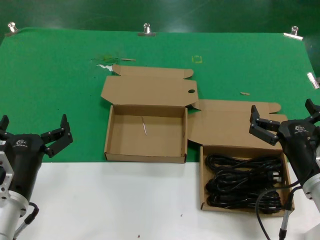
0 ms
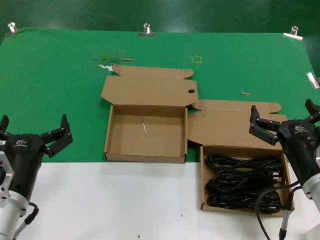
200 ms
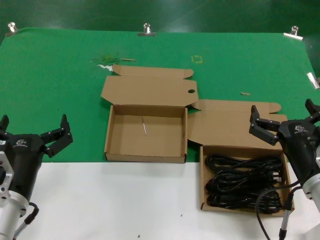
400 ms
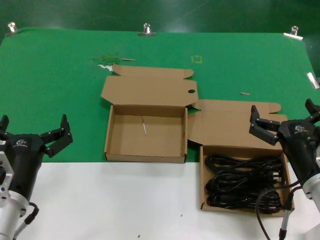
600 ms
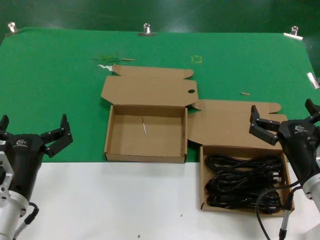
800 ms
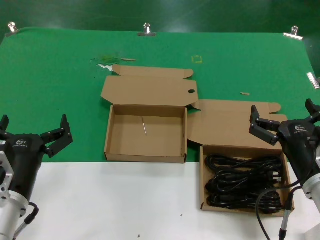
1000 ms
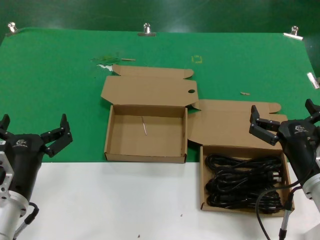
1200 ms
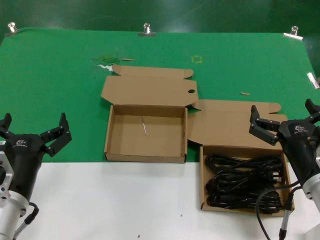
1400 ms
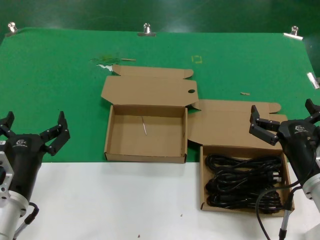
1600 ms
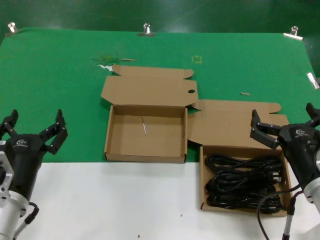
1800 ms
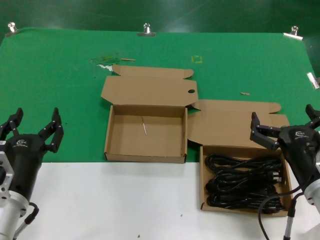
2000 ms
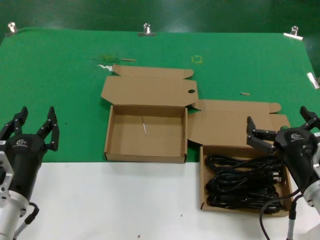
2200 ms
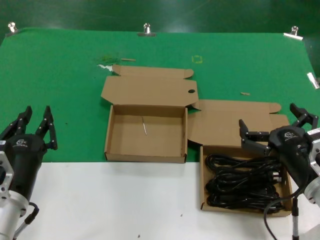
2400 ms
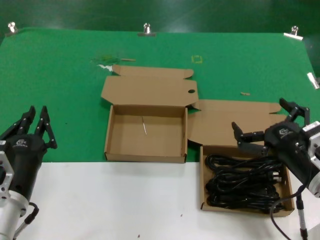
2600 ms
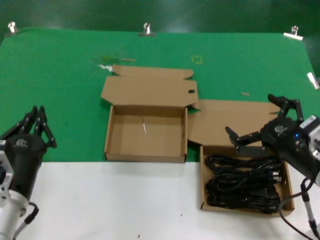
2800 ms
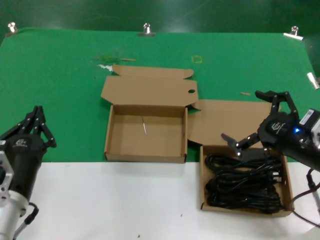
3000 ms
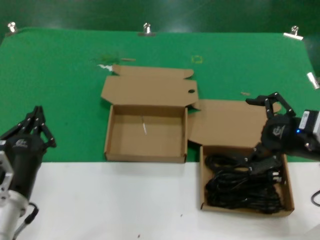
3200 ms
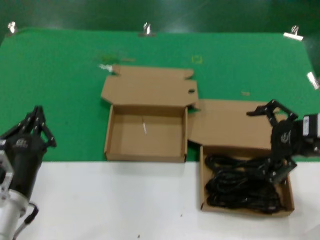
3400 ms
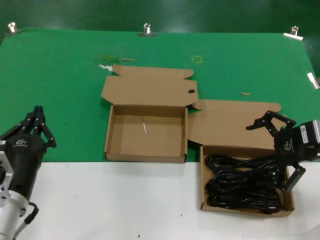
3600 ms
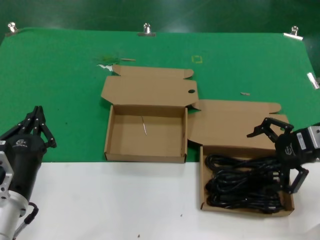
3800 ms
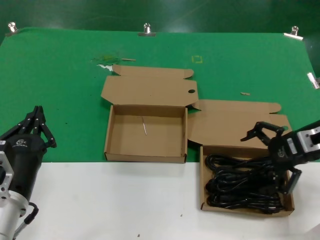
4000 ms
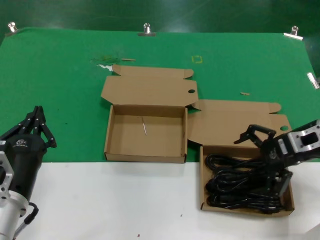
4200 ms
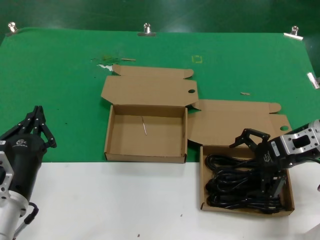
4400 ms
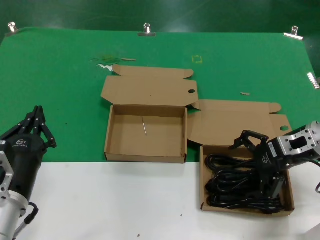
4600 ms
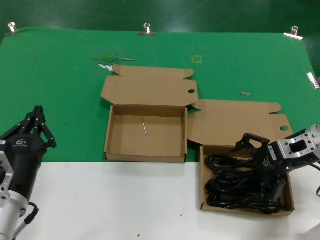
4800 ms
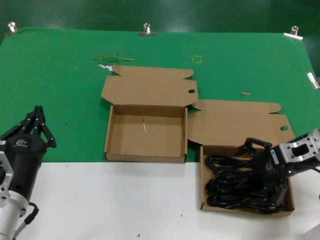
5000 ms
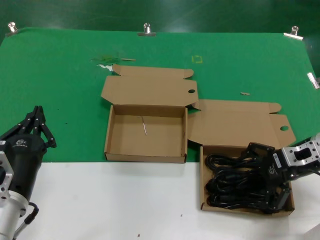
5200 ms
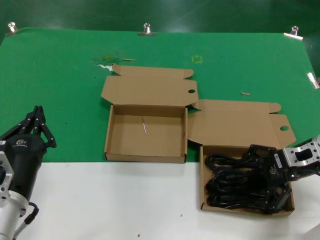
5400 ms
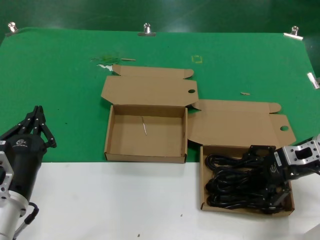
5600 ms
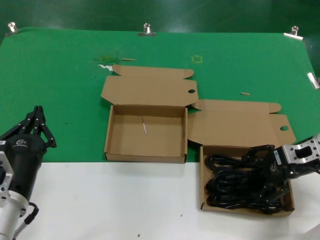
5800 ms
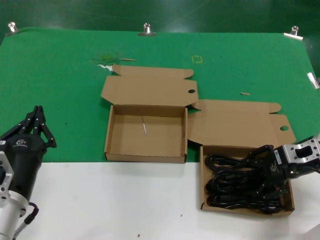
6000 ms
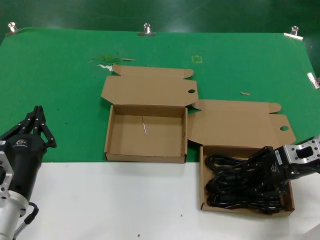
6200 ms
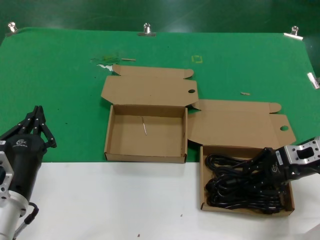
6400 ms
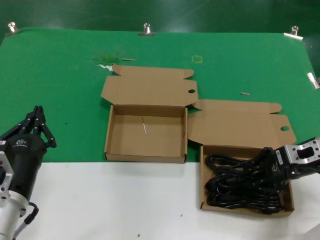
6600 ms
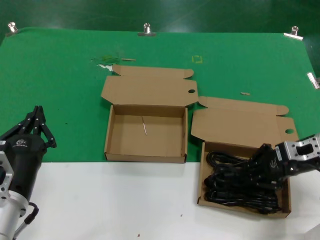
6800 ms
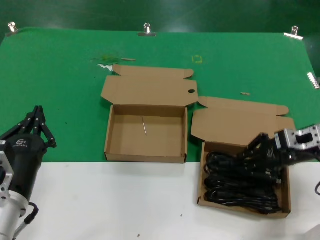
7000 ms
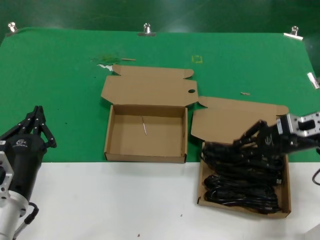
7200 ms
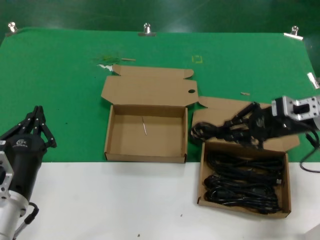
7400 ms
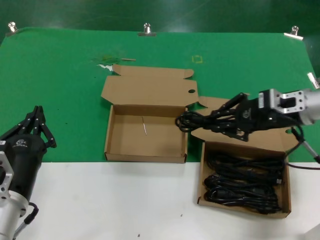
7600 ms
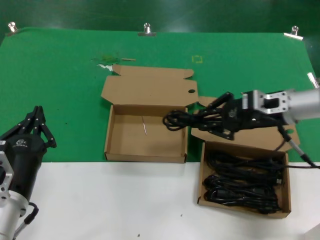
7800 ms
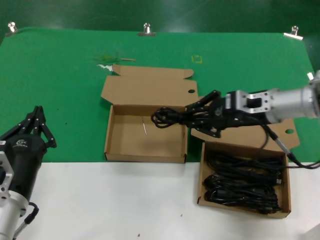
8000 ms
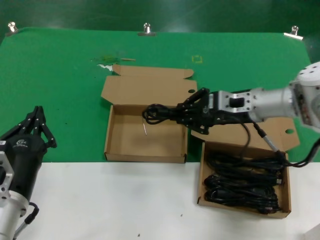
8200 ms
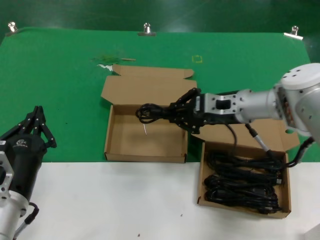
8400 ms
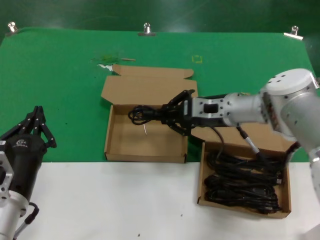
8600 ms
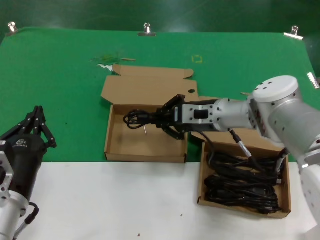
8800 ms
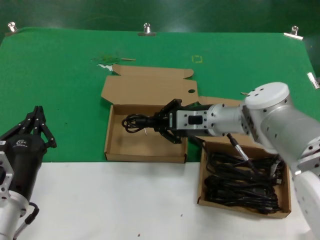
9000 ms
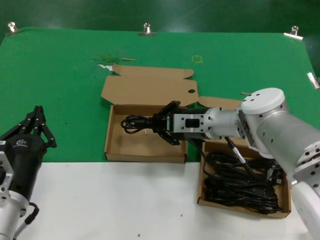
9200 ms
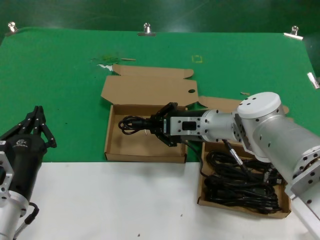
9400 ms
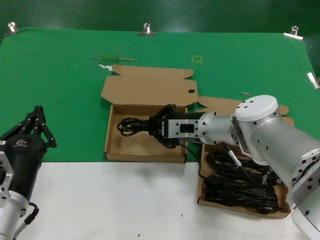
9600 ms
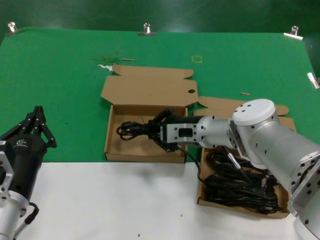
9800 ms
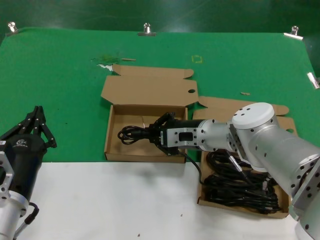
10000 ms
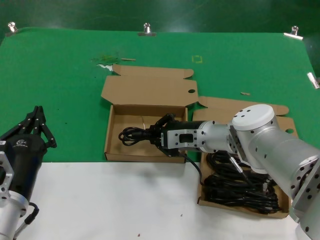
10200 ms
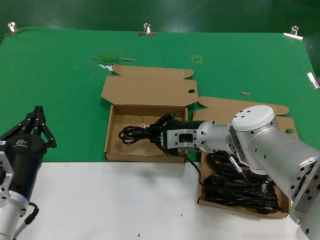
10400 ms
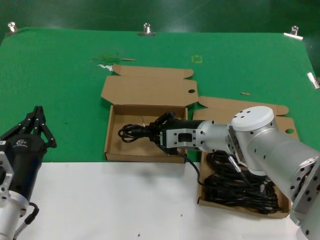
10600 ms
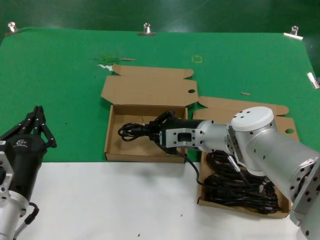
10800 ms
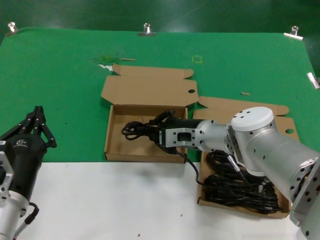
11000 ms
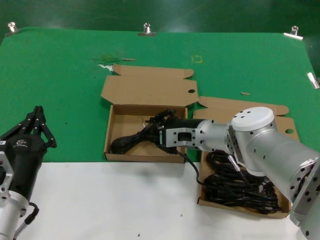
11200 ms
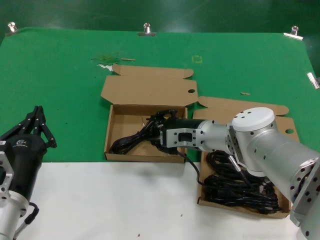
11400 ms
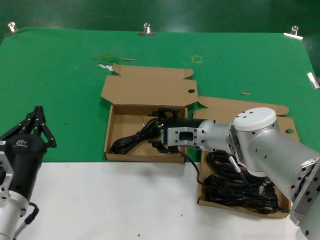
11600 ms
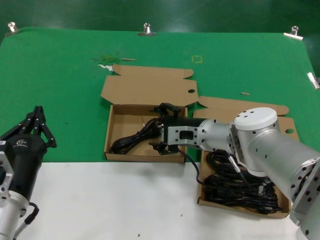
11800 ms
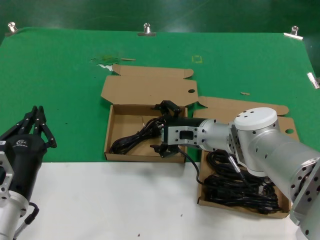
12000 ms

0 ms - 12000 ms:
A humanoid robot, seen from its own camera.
Task of the whole recording: take the parts from the box containing them and put them into an empty box.
Step, 0 ms - 6400 ms: Grasp the data cable.
Step, 6600 ms - 11200 ms: Place the data cable in the another box.
0 ms - 1600 ms: Neither hand changes place.
1600 ms - 3000 ms: The right hand travels to the right and upward by roughly 10 cm.
3000 ms - 4400 ms: The right hand is displaced forward by some 15 cm.
4400 ms - 6000 ms: The hands stay close to where they were, moving slightly.
6000 ms - 7600 ms: The right hand shifts some 5 cm upward.
7600 ms - 9000 ms: The right hand travels to the left by roughly 20 cm.
9000 ms - 10400 ms: The right hand ends up approximately 5 cm from where it was.
10400 ms - 12000 ms: The two hands keep their place.

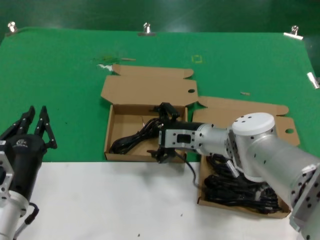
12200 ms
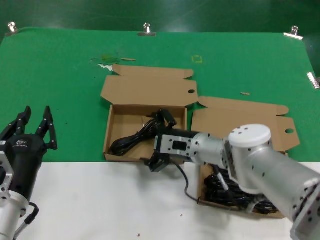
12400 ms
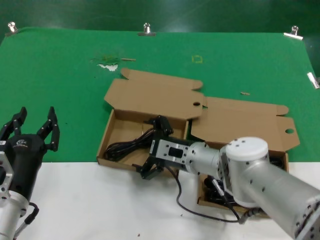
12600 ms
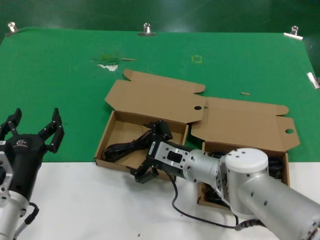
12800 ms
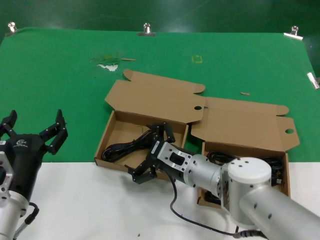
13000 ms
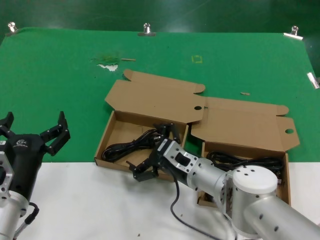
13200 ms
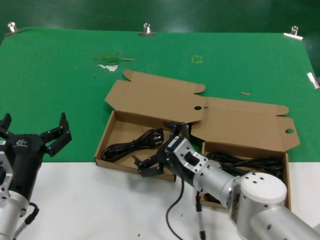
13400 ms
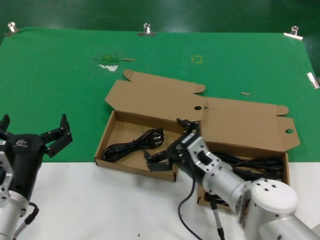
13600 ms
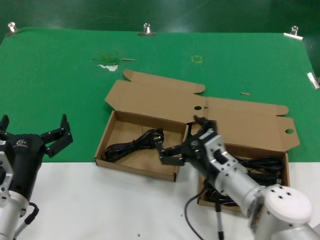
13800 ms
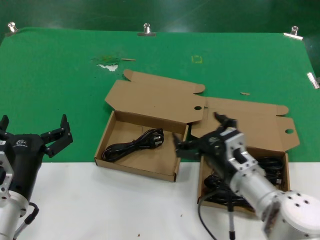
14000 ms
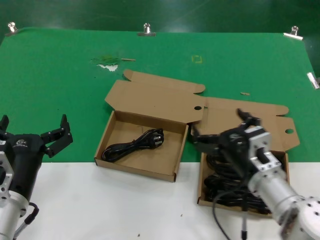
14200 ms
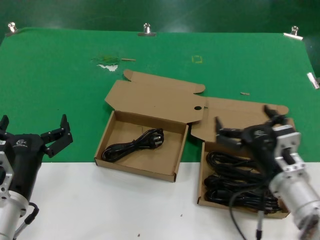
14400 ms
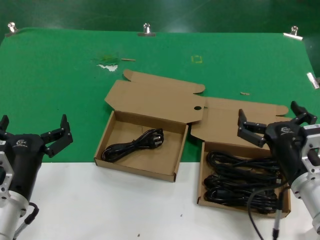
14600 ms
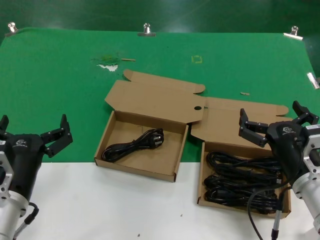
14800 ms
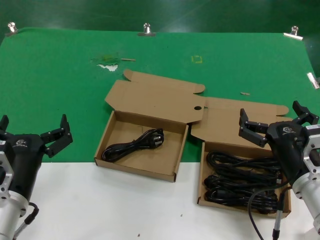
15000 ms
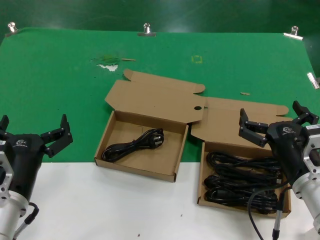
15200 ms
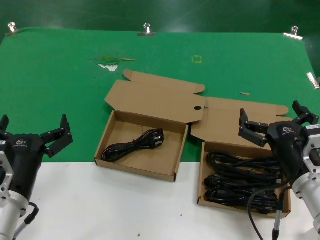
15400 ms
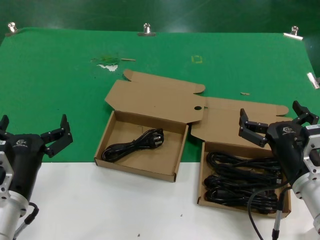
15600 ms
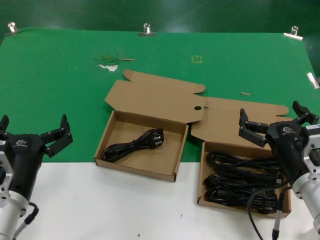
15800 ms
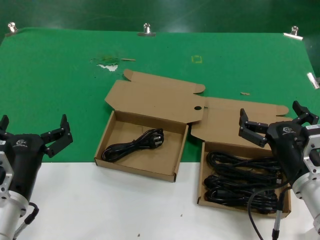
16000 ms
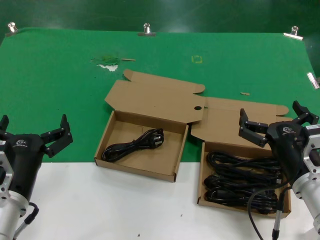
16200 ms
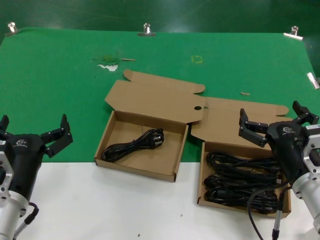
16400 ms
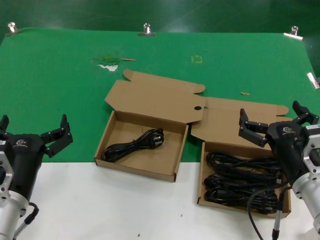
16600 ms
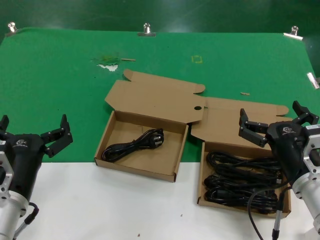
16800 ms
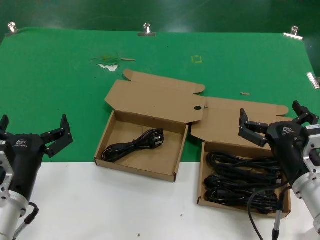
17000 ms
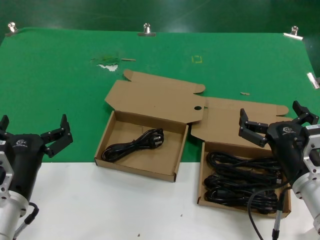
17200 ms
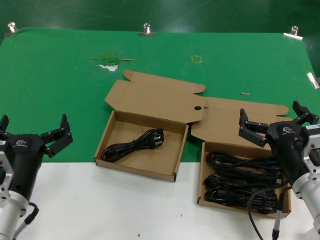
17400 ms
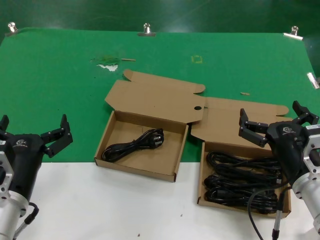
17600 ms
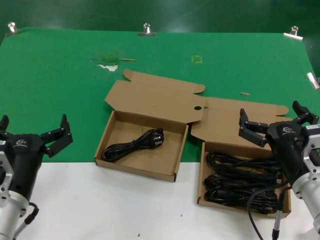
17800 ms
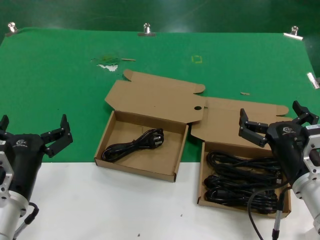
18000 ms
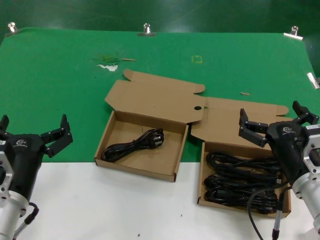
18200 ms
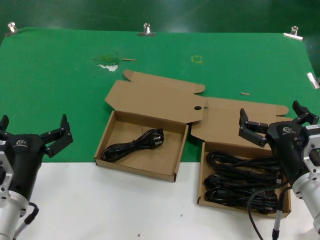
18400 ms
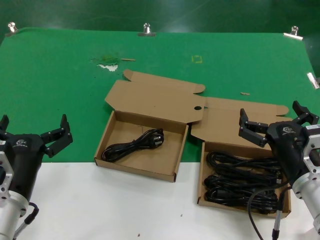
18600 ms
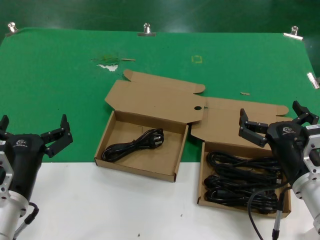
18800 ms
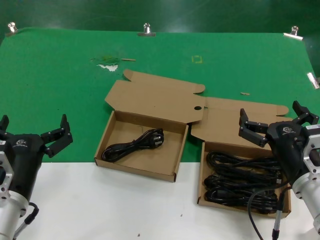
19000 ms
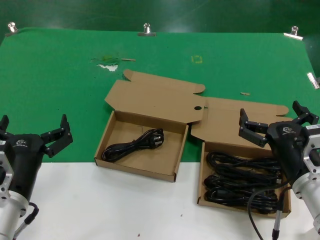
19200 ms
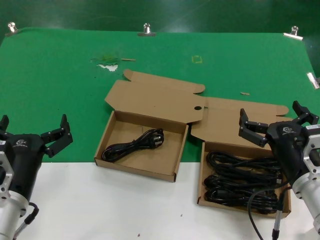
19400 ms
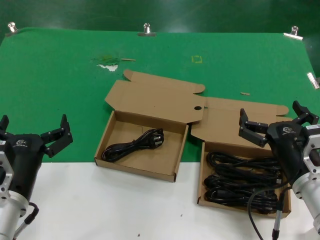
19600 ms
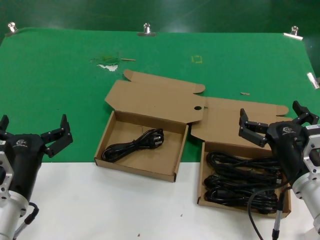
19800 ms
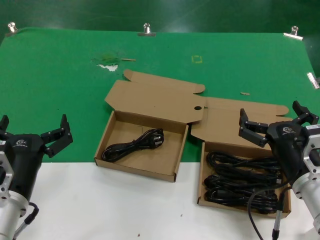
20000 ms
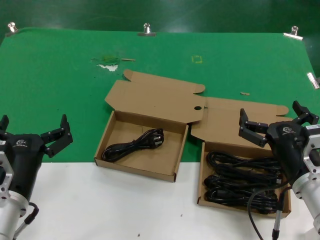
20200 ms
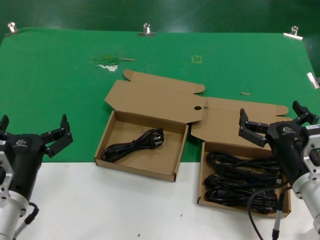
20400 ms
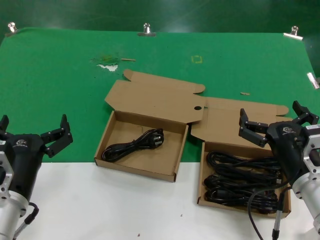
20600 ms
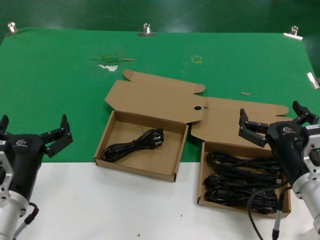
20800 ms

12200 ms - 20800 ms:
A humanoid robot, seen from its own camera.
Task of the whole recording: take the parts from the box containing them and put them into an empty box.
12200 ms - 13600 ms: The right hand goes roughly 10 cm backward.
13600 ms - 15000 ms: The right hand heads to the right, backward and upward, covering about 15 cm.
15000 ms - 20800 ms: Both hands stay about where they are.

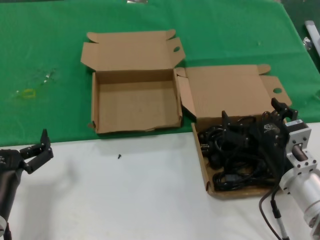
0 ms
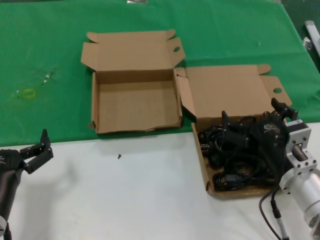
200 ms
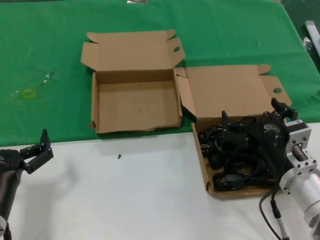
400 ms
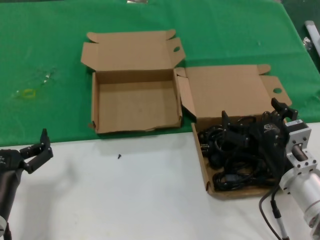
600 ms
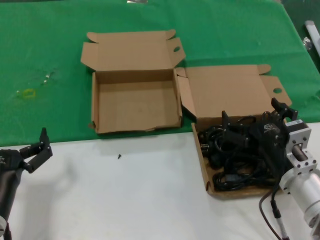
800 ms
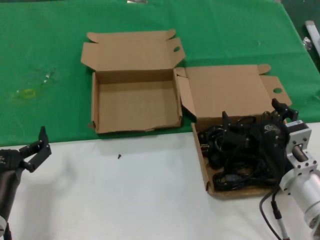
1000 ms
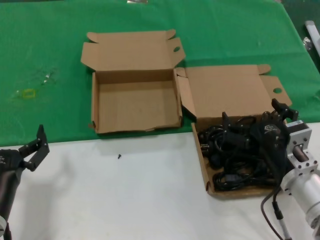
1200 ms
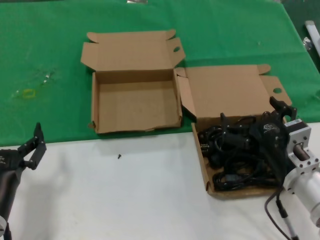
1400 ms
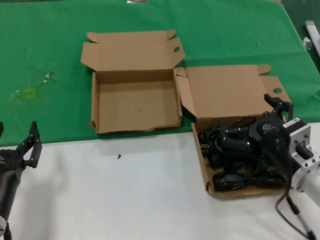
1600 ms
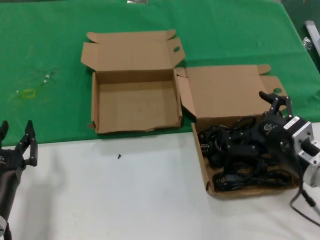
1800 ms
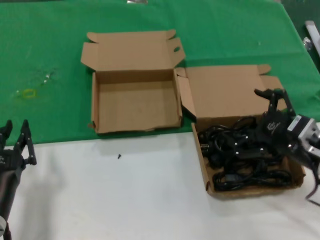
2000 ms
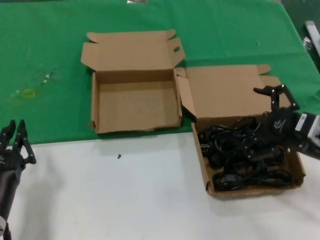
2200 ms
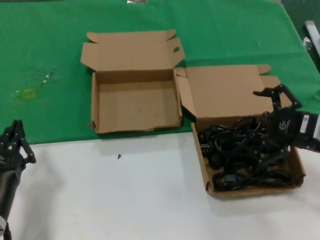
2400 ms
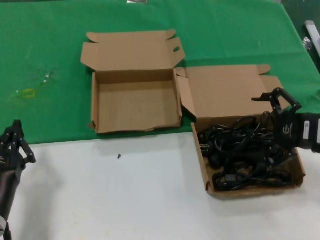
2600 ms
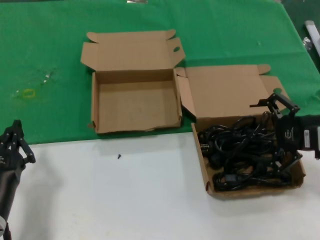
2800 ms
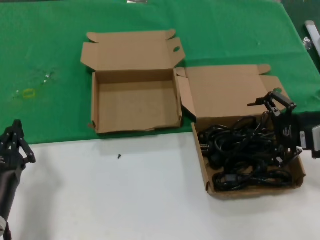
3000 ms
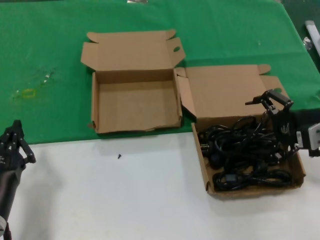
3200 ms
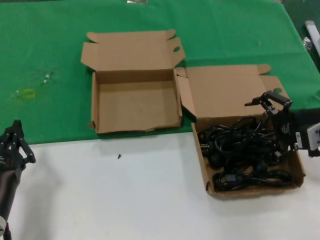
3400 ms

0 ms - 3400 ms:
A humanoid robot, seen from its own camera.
Task of the whole recording: take the parts from the box containing them and put them into an empty box.
0 ms - 1600 ms: The hands make only small movements.
1600 ms - 3400 ms: The right hand shifts about 20 cm to the right, upward and forward.
